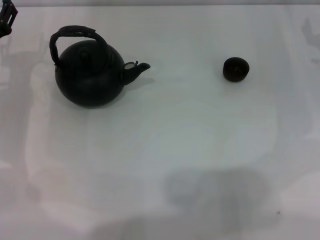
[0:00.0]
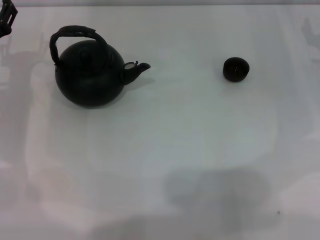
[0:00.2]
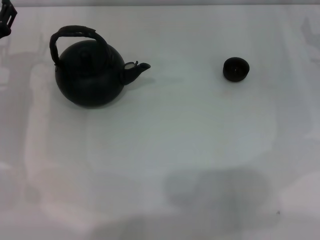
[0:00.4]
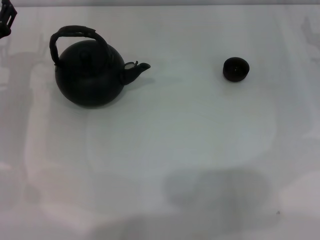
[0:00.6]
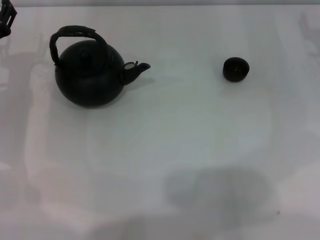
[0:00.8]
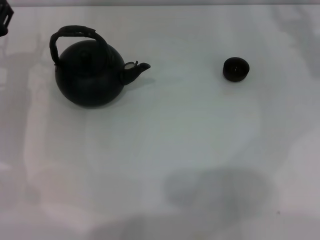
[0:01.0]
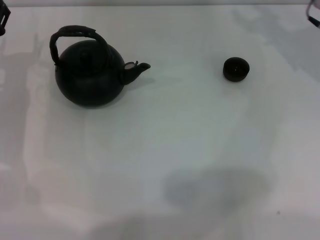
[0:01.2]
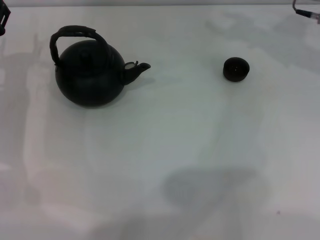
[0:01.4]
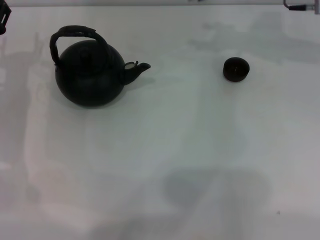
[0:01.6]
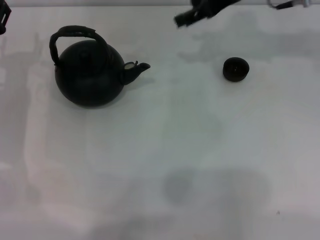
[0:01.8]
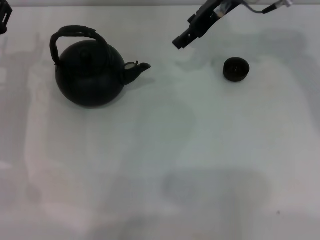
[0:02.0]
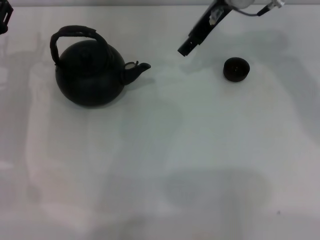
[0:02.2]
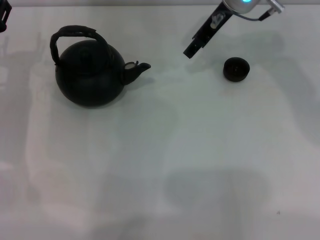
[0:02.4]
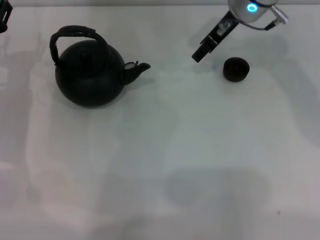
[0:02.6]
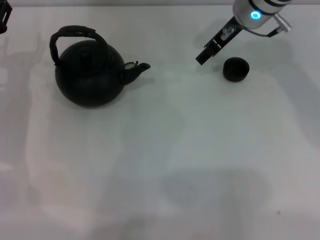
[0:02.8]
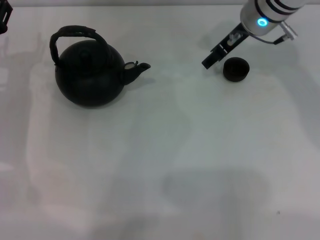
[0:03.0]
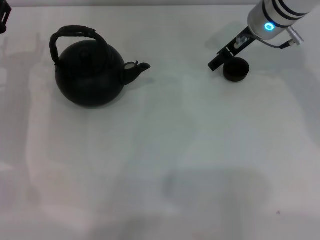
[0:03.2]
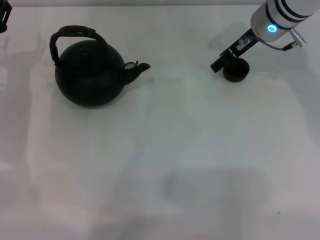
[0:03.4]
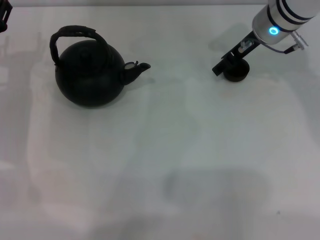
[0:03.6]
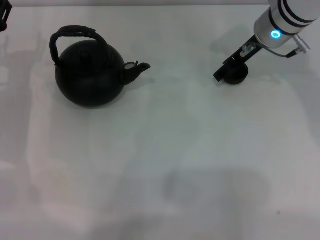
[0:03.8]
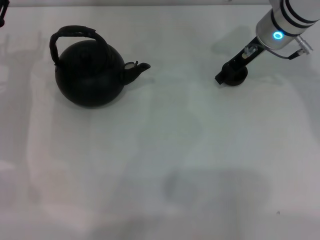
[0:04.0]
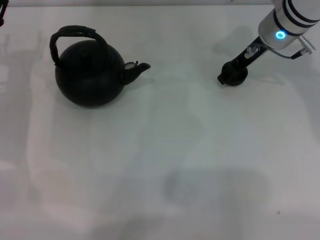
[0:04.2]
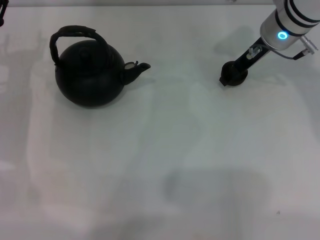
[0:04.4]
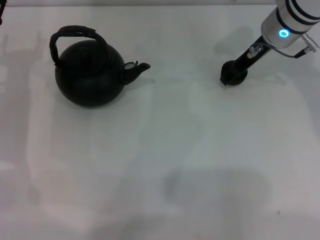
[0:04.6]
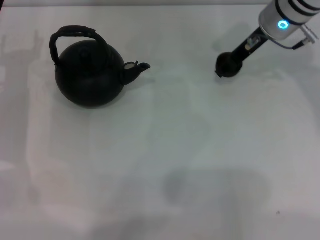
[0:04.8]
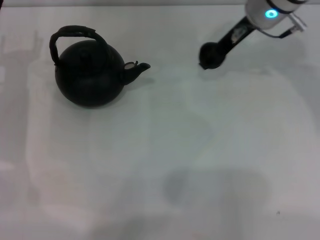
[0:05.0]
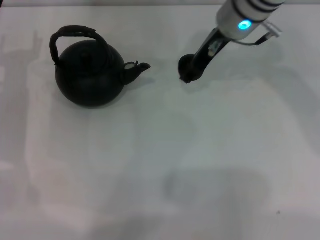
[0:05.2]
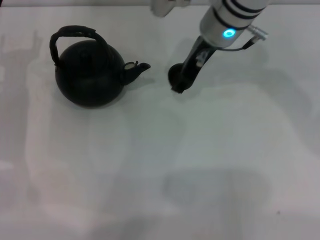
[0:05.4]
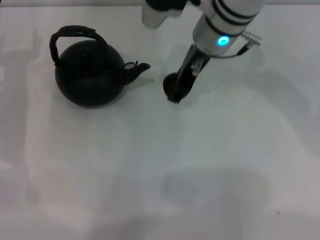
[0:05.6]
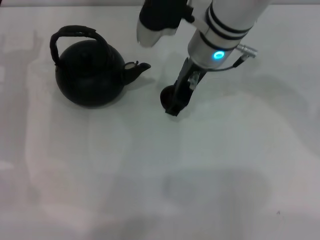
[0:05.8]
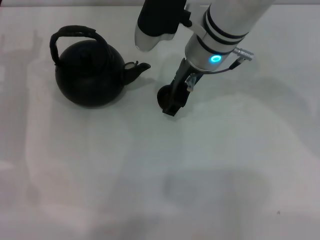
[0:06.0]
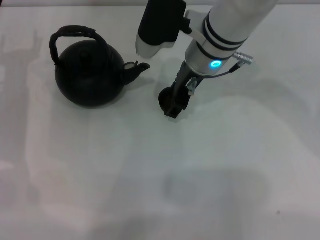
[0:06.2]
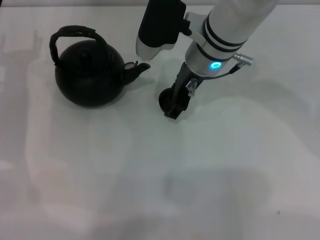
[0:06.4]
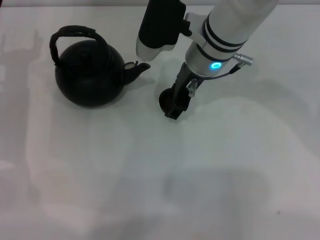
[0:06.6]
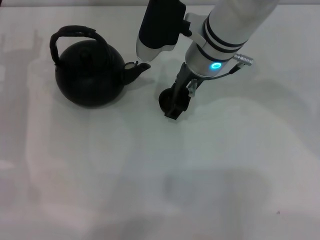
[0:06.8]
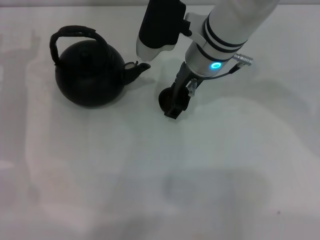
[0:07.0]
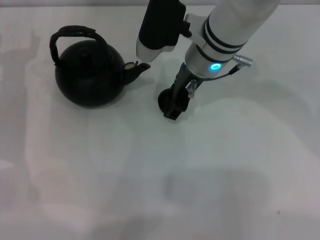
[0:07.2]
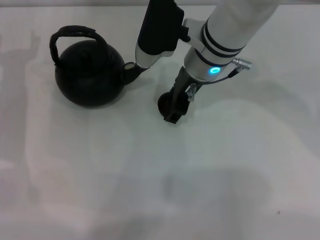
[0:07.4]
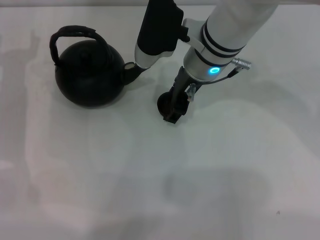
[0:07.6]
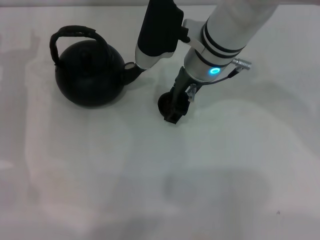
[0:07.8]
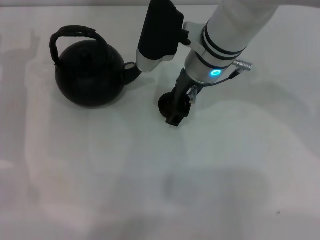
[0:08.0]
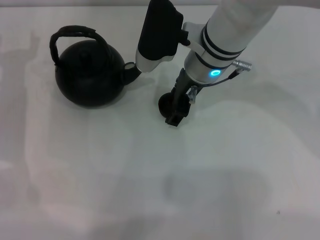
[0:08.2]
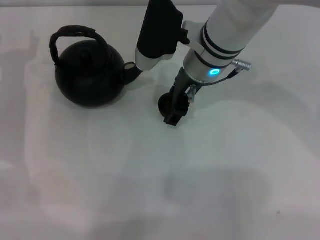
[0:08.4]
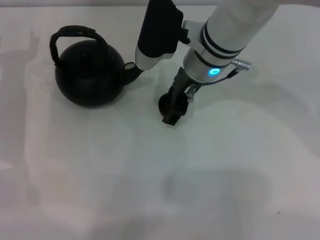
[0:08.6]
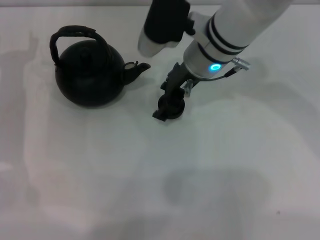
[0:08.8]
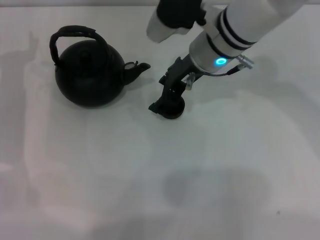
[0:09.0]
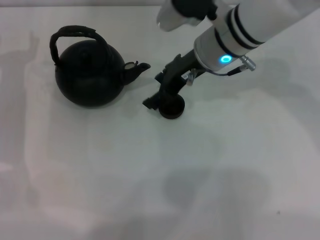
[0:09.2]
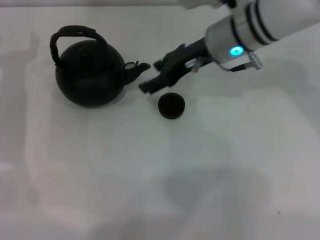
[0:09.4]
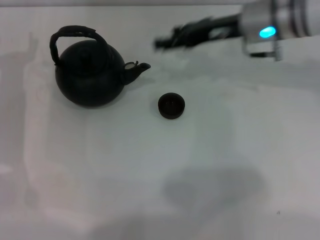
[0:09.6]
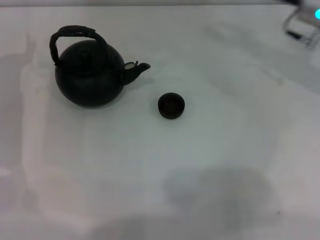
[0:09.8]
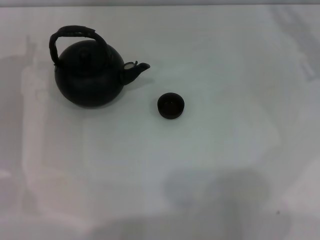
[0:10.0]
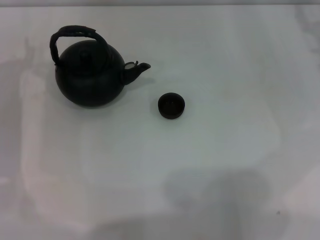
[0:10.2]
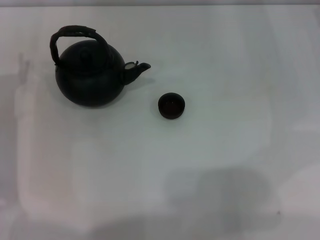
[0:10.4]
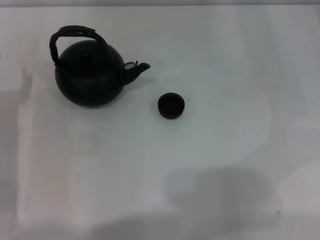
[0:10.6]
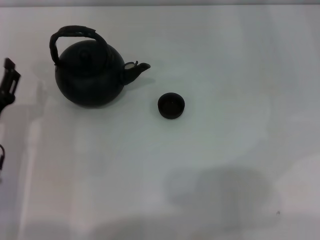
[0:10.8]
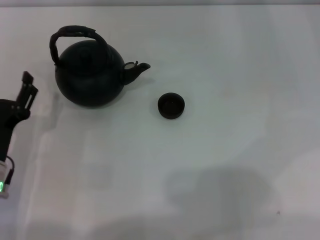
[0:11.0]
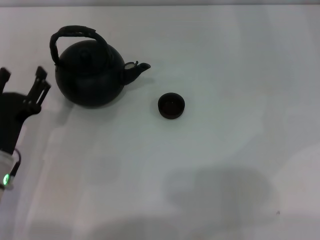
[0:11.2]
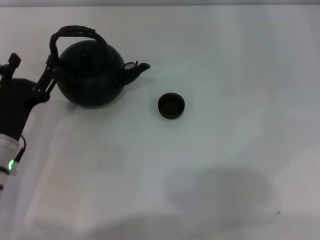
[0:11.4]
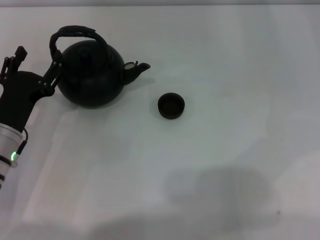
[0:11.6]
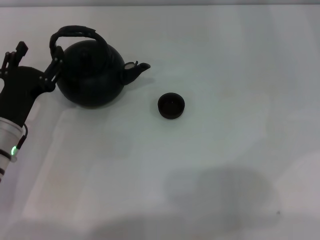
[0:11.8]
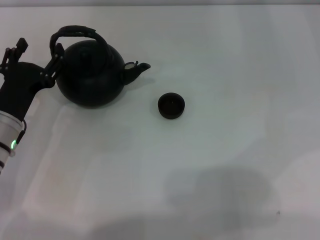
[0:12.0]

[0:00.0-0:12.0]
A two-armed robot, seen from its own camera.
Task of the whole recording: Grasp the handle of the teapot with one hand and pour tea into the teacup.
Step, 0:00.0 to 0:04.8: Pick up the teacup with the right gripper.
Step, 0:05.0 to 0:09.4: Place the teacup in the center of view with the right gripper.
0:01.6 to 0:03.0: The right gripper shifts some 5 cm to the left.
0:03.0 to 0:04.4: There are only small adjustments of the grippers.
0:04.4 to 0:06.0: The right gripper is displaced to the left by about 10 cm.
0:06.0 to 0:09.0: The grippers move only a little.
0:09.0 to 0:10.4: The right gripper travels to the right by approximately 25 cm, while the left gripper ends up some 5 cm from where it was.
0:10.4 to 0:12.0: The left gripper reaches roughly 10 cm backward, then returns.

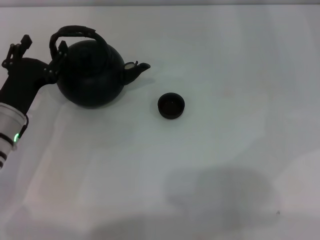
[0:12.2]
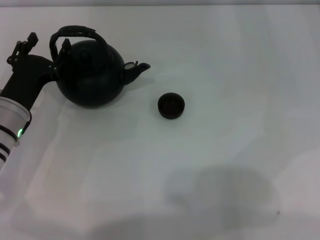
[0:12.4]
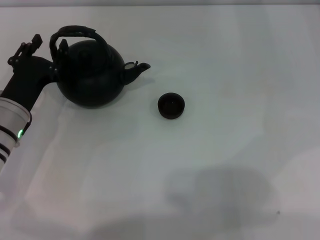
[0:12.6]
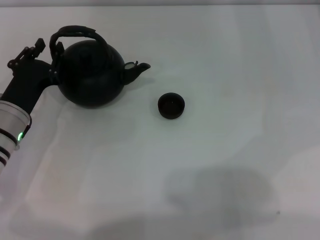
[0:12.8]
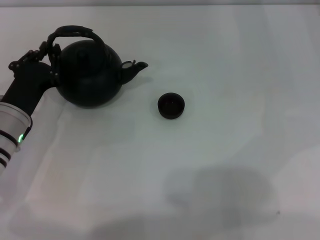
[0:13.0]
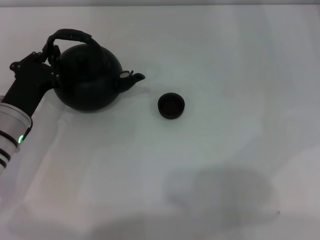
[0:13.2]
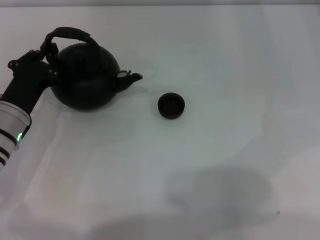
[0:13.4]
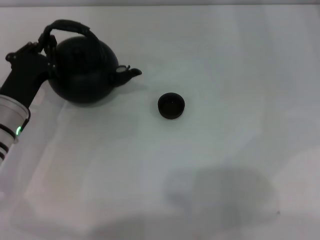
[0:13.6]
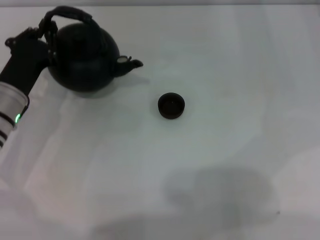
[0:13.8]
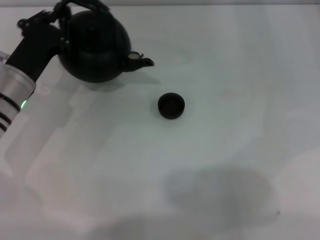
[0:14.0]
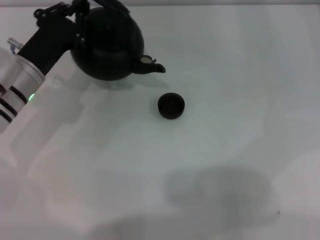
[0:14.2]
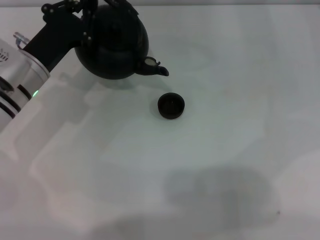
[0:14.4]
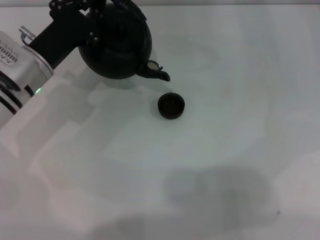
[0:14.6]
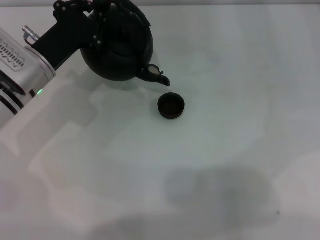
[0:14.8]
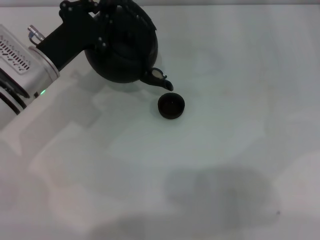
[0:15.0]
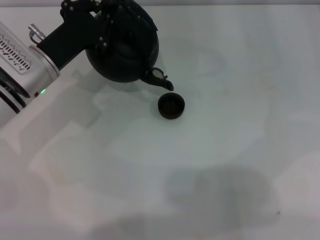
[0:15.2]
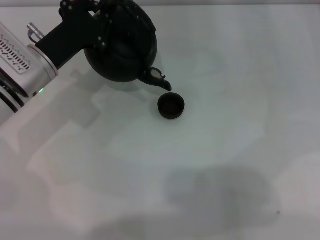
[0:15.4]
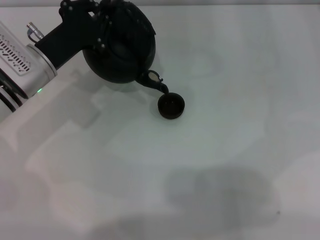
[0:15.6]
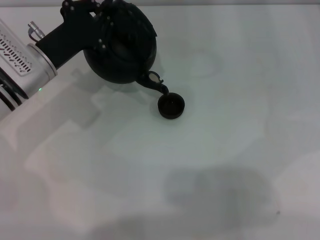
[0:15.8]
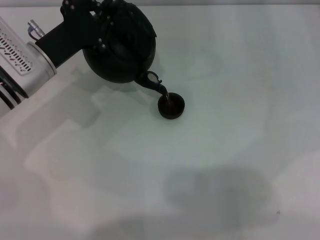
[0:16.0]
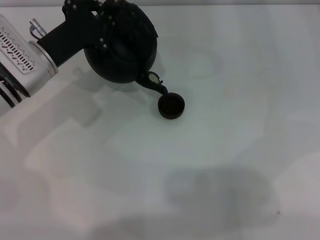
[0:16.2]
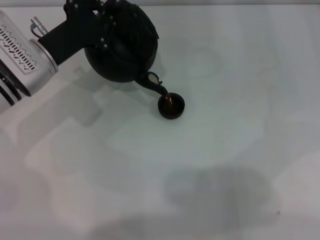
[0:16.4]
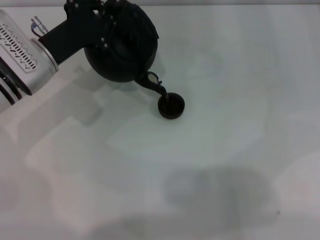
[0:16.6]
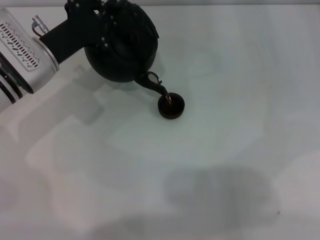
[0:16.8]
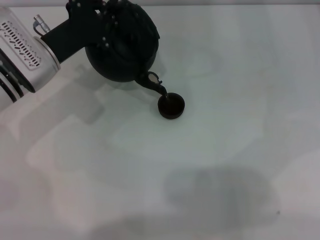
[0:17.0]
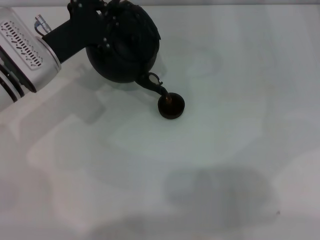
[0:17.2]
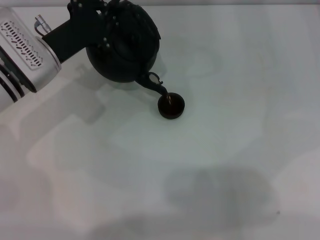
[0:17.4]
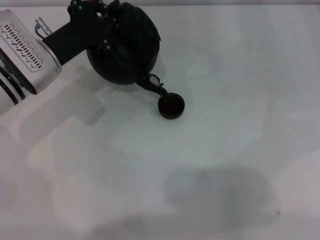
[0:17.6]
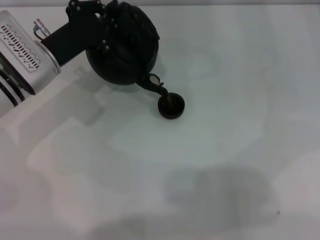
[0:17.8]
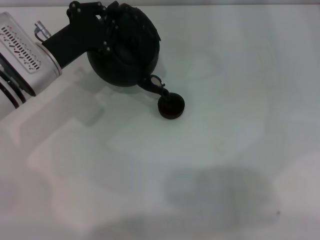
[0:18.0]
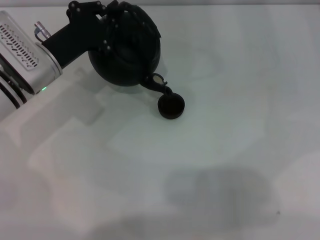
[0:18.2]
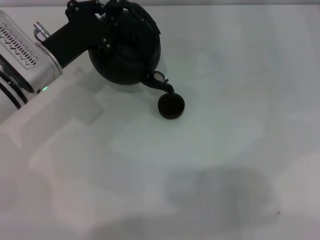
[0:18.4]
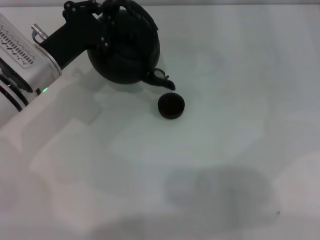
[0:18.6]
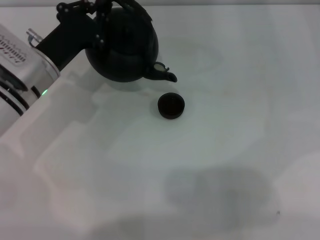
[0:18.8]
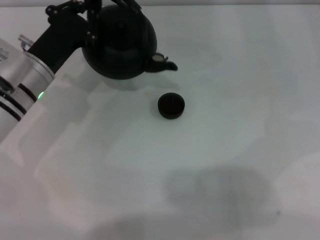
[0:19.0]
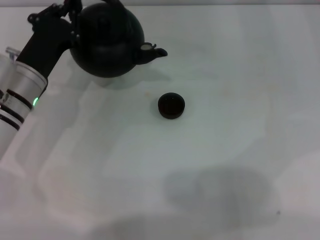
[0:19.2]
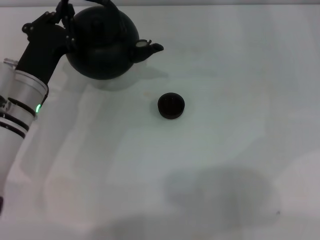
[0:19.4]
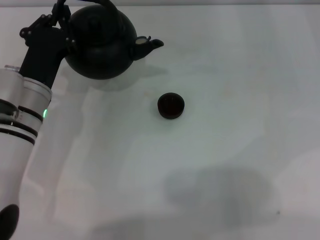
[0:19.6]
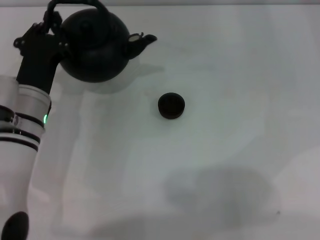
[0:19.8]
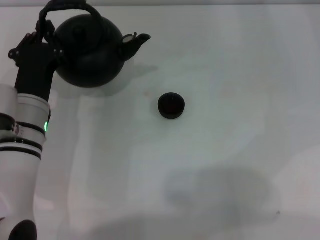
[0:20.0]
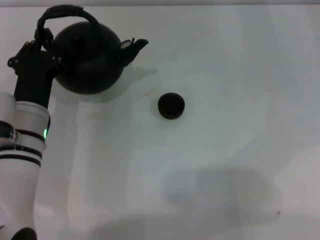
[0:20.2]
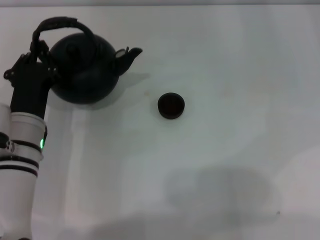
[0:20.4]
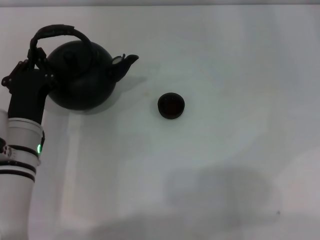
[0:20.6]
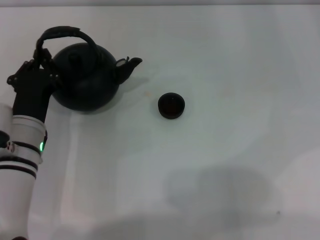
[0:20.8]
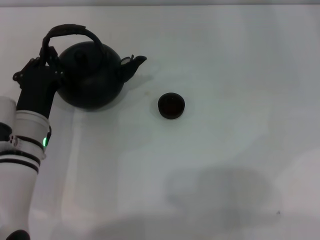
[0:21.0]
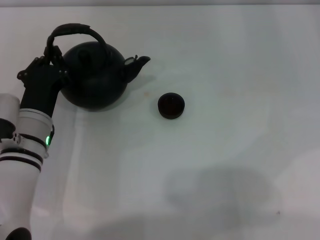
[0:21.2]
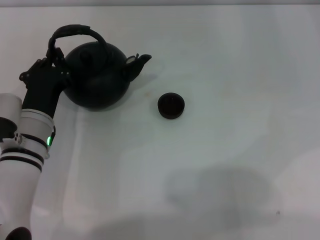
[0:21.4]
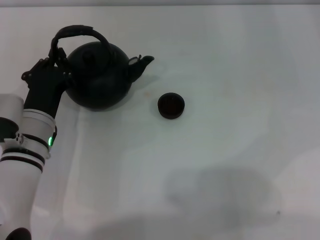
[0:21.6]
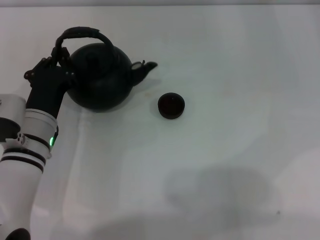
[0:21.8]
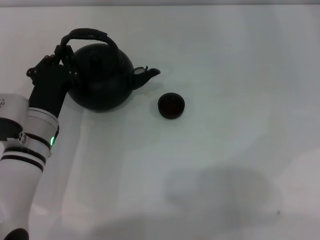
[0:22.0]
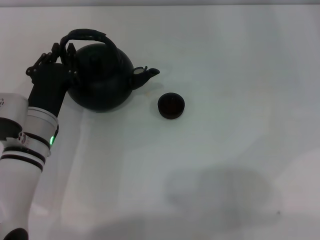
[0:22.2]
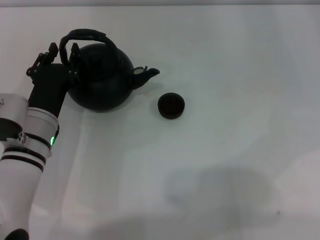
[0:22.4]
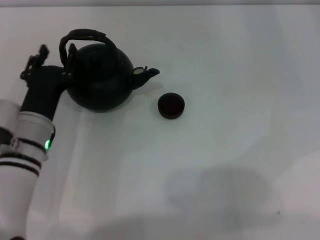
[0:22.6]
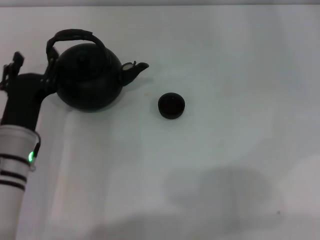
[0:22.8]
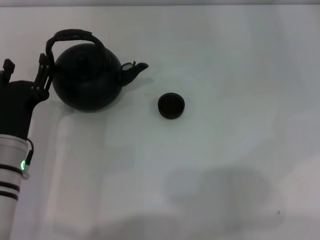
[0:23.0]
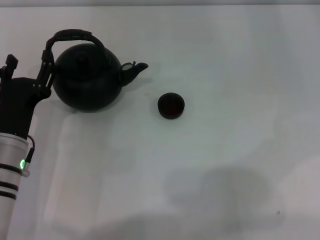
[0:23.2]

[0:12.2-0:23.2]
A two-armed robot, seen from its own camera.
Task of the whole recording: Grasp the handle of the teapot with one hand and pour tea into the teacup.
Step, 0:14.0 to 0:18.8: Pour tea into the teacup with the left gripper.
0:12.2 to 0:13.8: The left gripper closes up.
0:13.8 to 0:15.4: The left gripper shifts by roughly 5 cm.
0:15.4 to 0:18.4: The grippers make only small movements.
0:18.4 to 0:20.0: The left gripper shifts some 10 cm backward.
0:20.0 to 0:21.6: There are only small adjustments of the grippers.
0:21.6 to 0:23.2: The left gripper opens its fingers.
